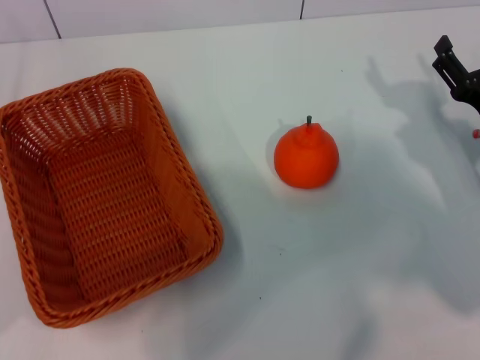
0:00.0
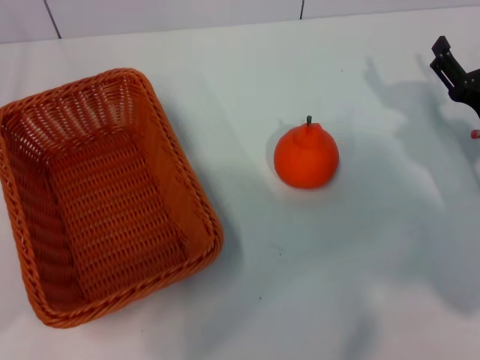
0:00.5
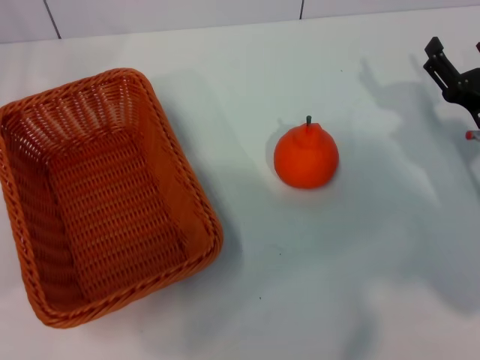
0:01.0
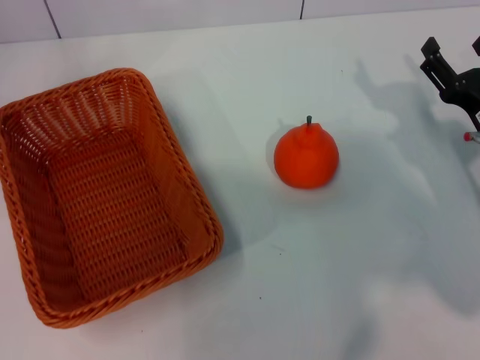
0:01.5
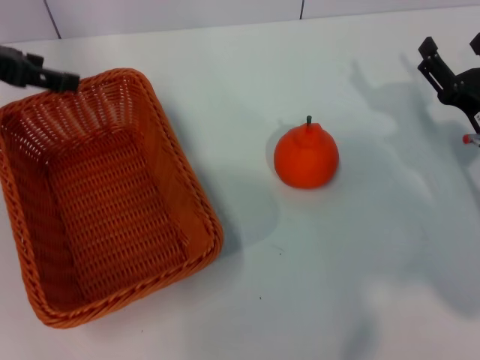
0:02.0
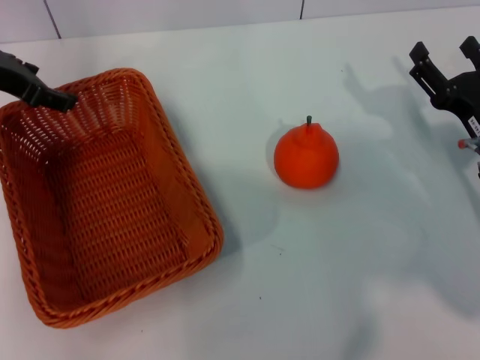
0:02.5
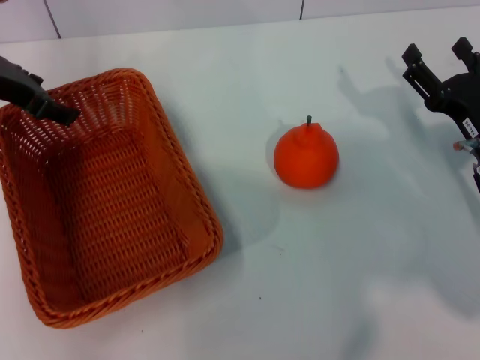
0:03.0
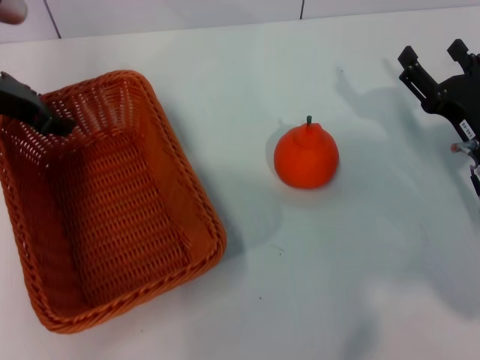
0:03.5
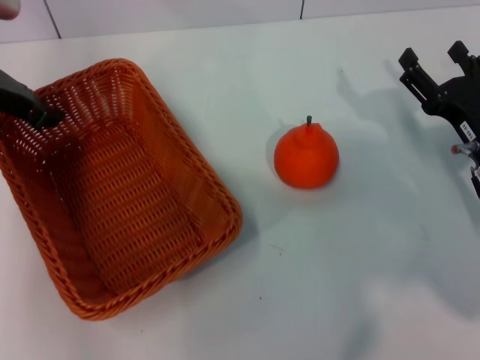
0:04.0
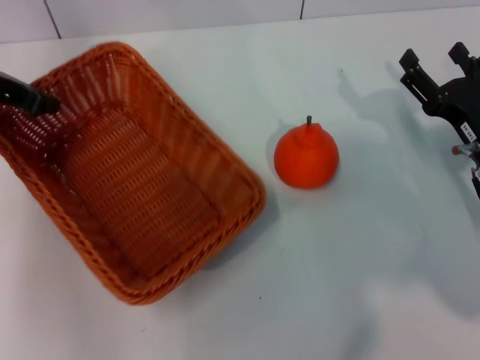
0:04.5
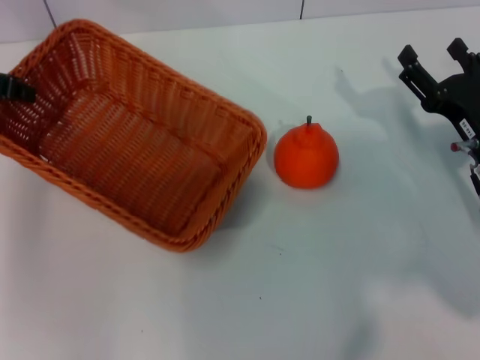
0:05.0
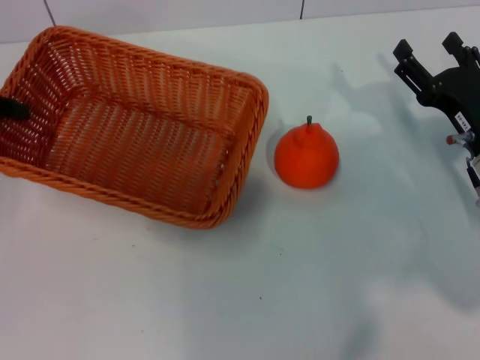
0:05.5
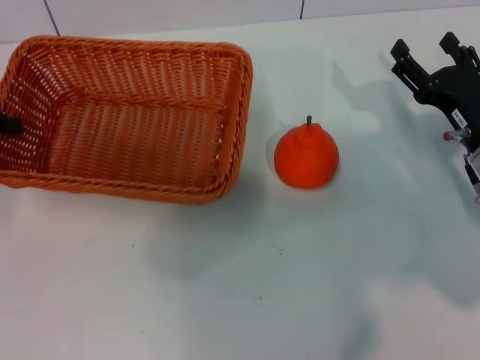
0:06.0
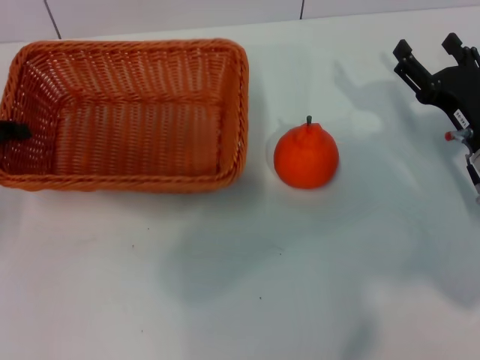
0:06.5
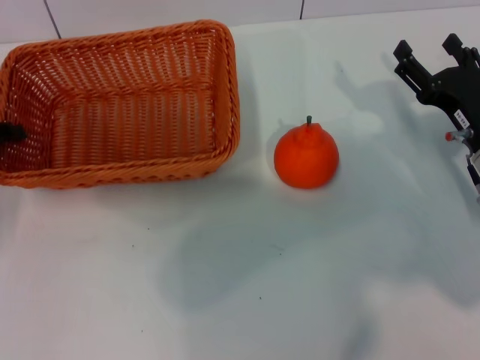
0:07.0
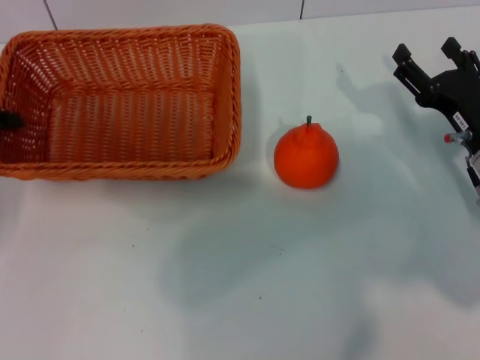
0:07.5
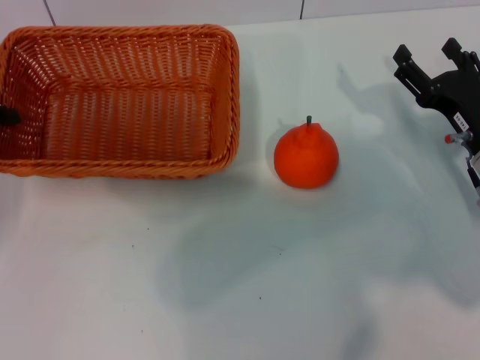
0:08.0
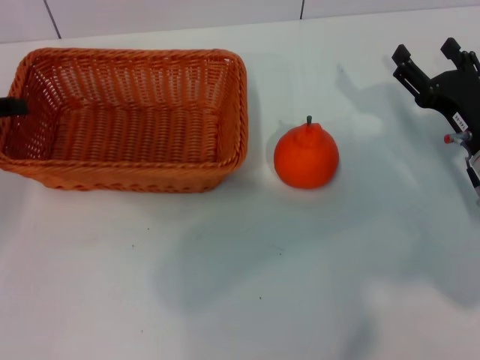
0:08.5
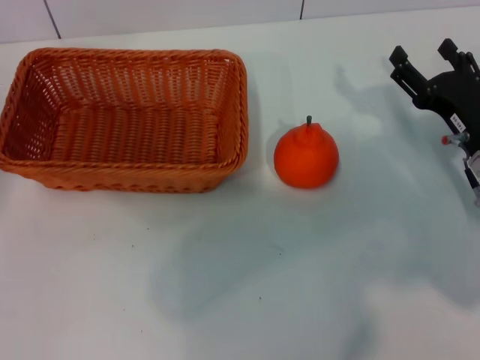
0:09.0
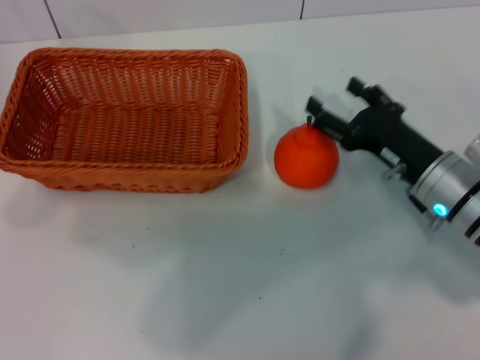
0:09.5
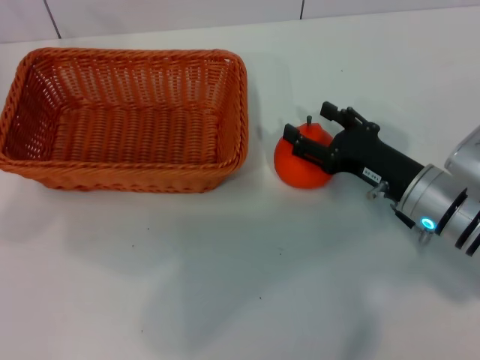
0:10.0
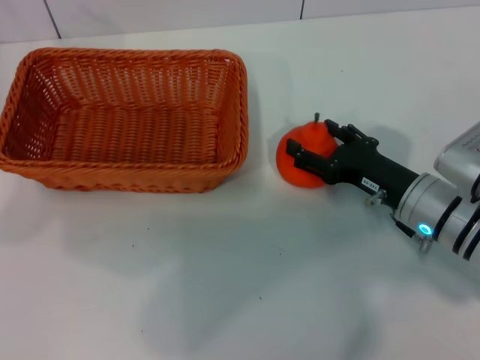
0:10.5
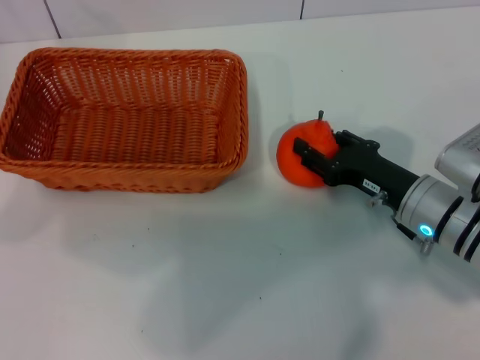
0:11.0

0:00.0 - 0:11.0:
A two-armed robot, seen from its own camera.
Task of the whole recording: the left gripper pick up the yellow basket and place it horizontally in the middle of the table, the right gripper pick up the orange and place it into the yellow basket.
Step, 0:00.0 - 0:04.5: Pick up the light basket with the left gripper.
Step, 0:05.0 - 0:09.0: Place the light basket in the center of view with the left gripper.
0:00.0 - 0:02.0: The left gripper heads upward, forward and to the right, covering some 20 cm.
0:02.0 - 0:03.5: The left gripper ends up approximately 5 cm from where it was.
0:03.5 - 0:05.5: The left gripper shifts about 10 cm to the left, and closes its fingers.
0:05.5 - 0:07.5: The left gripper shifts by roughly 5 cm.
0:07.5 - 0:09.0: The left gripper opens up.
0:09.0 - 0:11.0: The right gripper goes some 5 cm to the left.

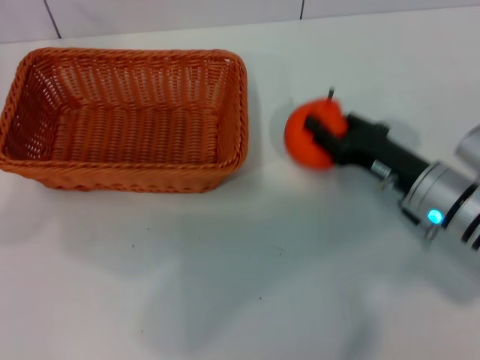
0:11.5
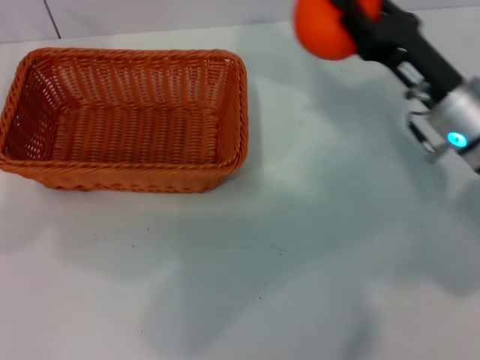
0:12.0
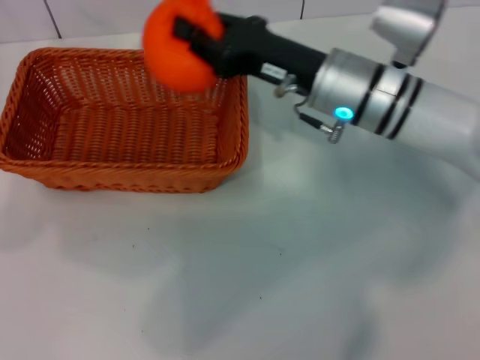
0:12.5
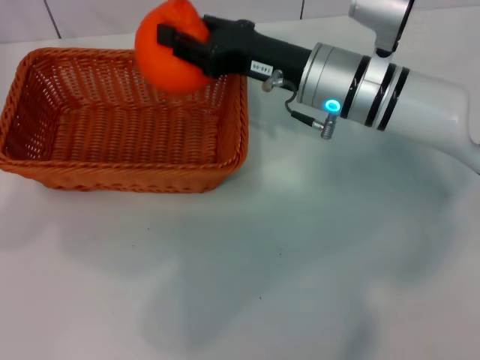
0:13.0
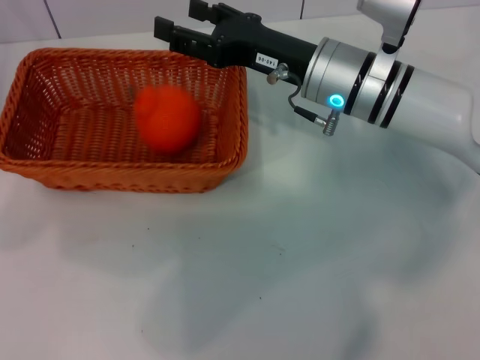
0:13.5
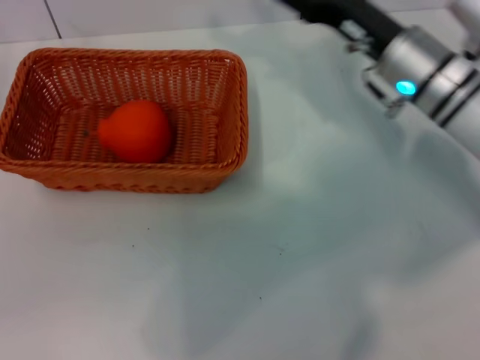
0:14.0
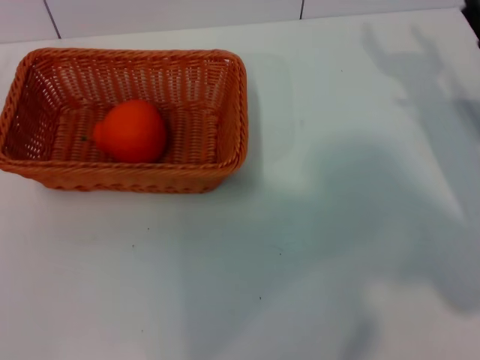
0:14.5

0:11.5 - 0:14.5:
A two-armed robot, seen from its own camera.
Task of the whole recording: the left gripper pick up the yellow basket and place it horizontally in the middle of the table, the right gripper pick up the orange and place it into the yellow basket.
Step, 0:12.0 - 0:13.5: Place the orange into the light basket with the right gripper.
0:11.5 - 0:13.0: The right gripper goes roughly 15 cm to the left, upward and forward.
0:13.0 - 0:14.5: The right gripper travels to the right by about 20 cm, and opens up. The left gripper ends up some 5 cm from where it was.
